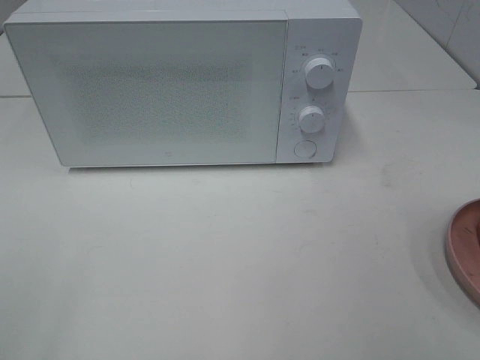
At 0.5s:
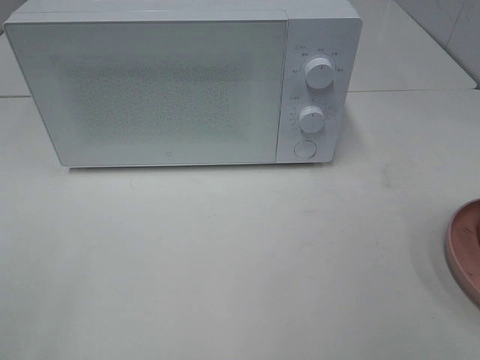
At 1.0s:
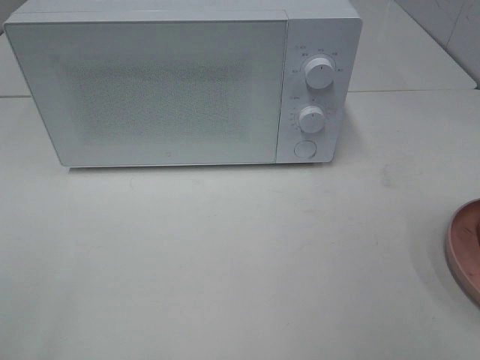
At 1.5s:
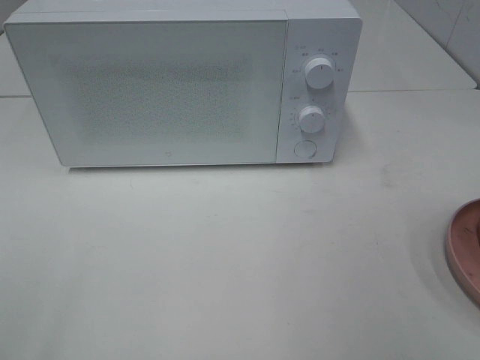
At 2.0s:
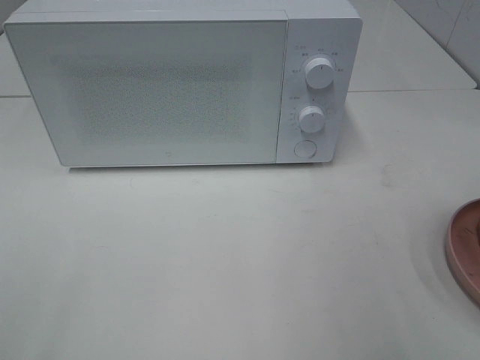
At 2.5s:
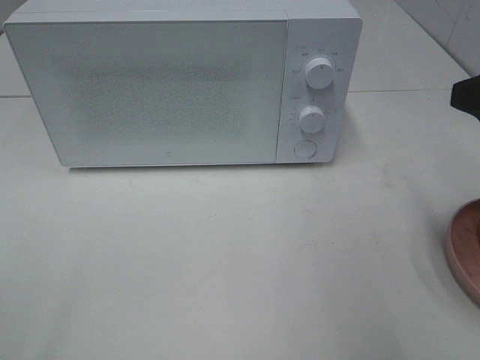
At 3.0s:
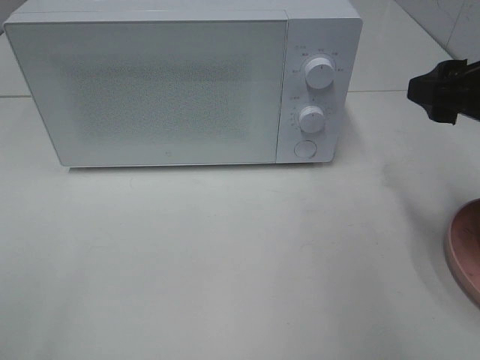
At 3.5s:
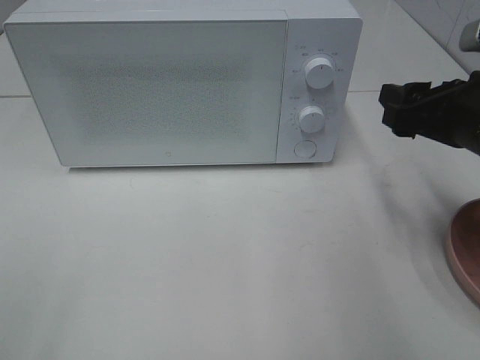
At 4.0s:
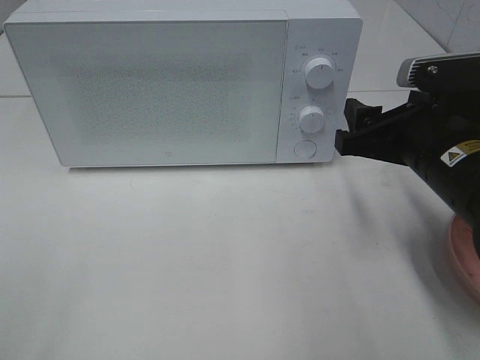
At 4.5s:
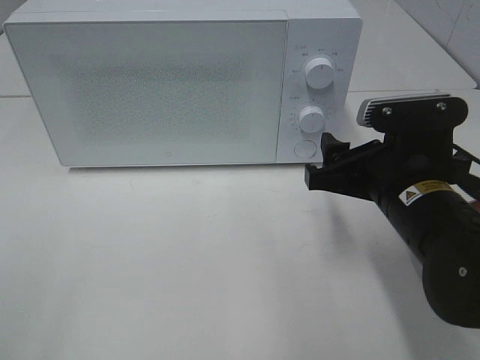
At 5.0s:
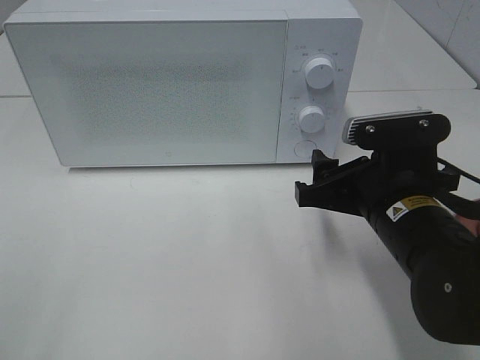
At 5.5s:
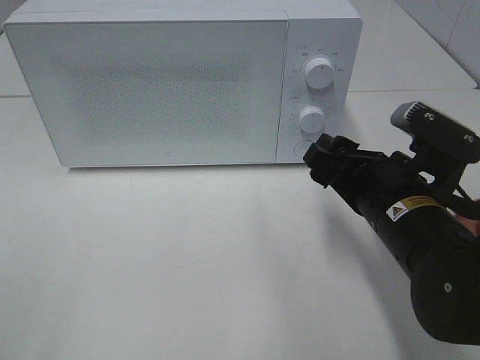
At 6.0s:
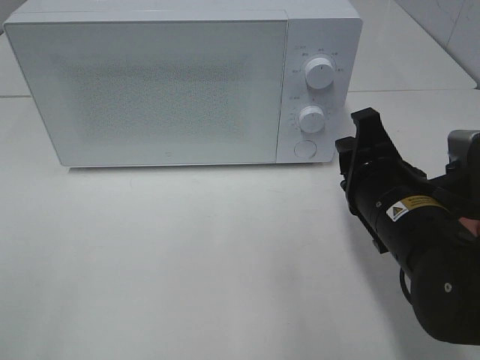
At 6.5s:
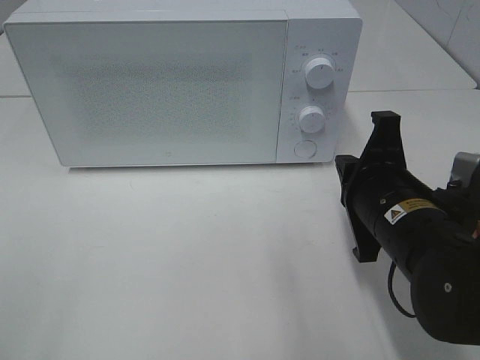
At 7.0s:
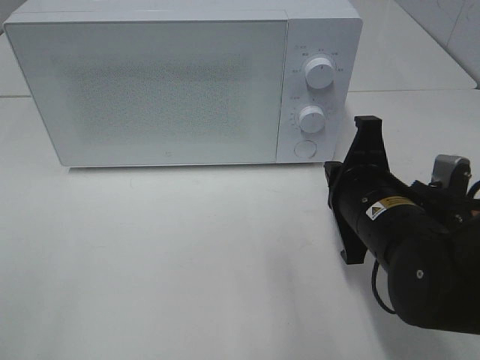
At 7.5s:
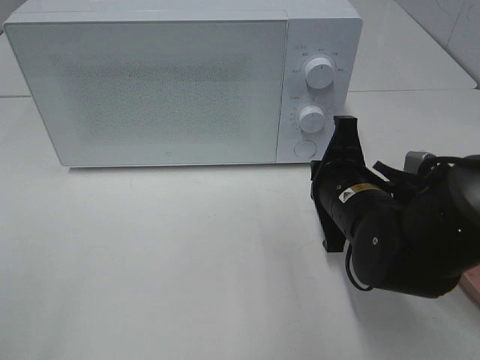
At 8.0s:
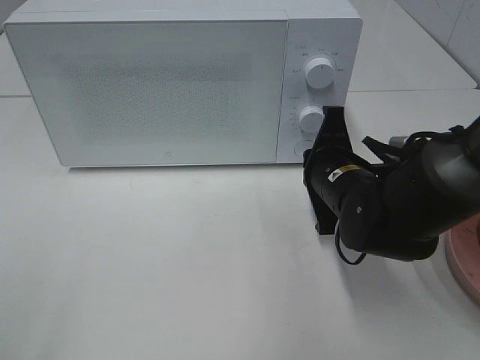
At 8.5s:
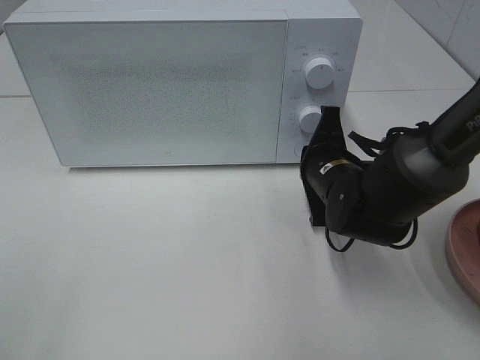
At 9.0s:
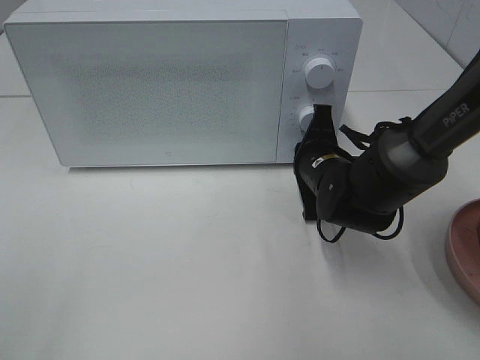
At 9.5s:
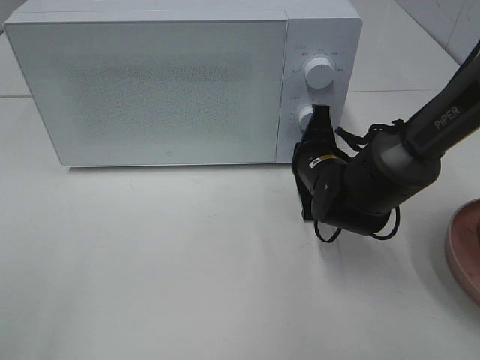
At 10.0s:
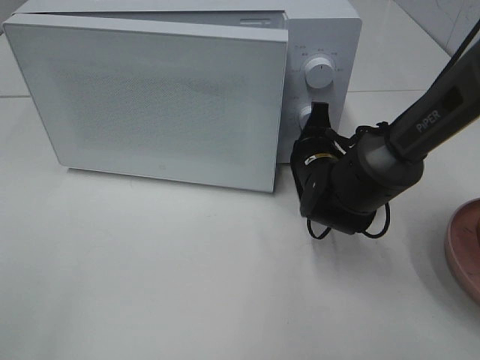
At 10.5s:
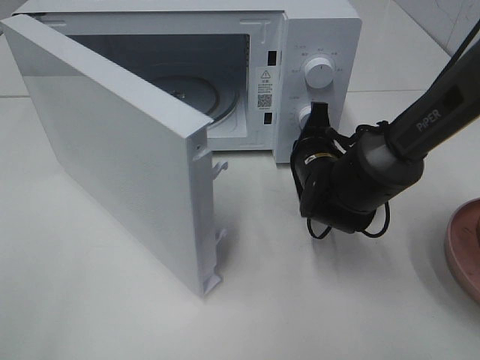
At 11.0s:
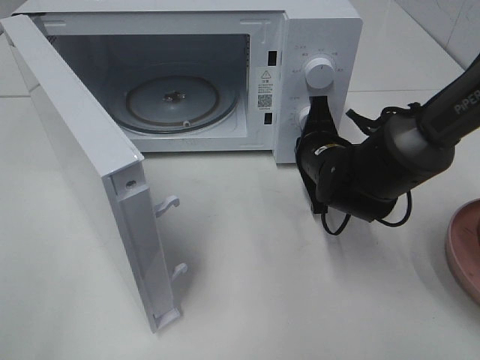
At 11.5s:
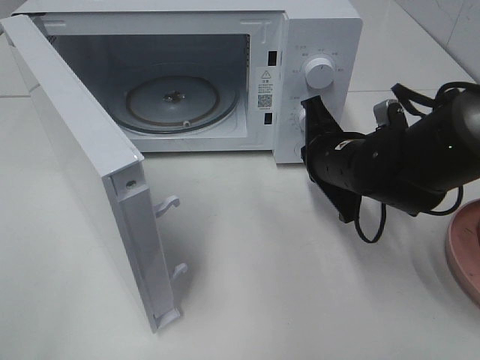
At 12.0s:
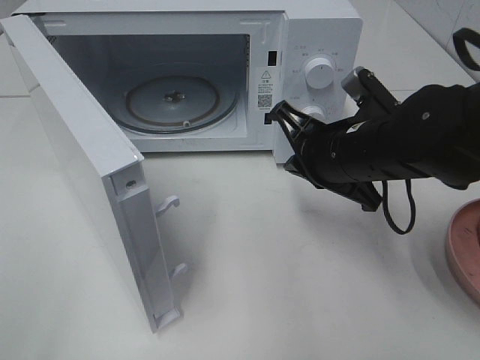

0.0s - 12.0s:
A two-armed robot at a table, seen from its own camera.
Task of the whole recording: Heat the burger.
Step, 0.0s - 11.5s: Right hand: press the switch.
2.0s - 4.0s: The right gripper travels downward, forward and to the left by roughly 20 cm.
4.0s - 6.0s: The right gripper ends up about 5 cm from where it was, and closes up.
6.0s - 8.0s: The right gripper goes some 10 cm forward, and closes.
8.0s - 10.0s: The right gripper travels forward by about 5 cm.
10.0s - 12.0s: The right gripper shifts some 10 cm upward and backward.

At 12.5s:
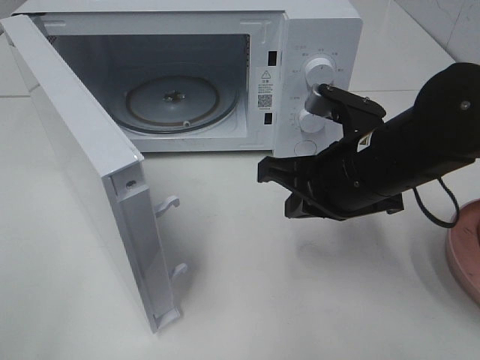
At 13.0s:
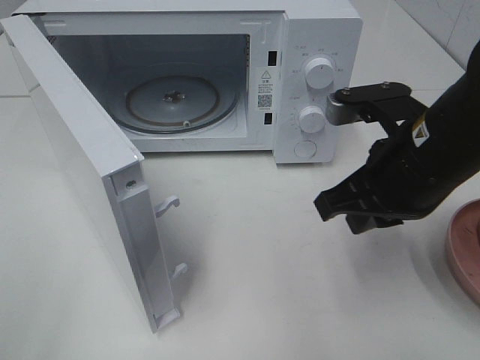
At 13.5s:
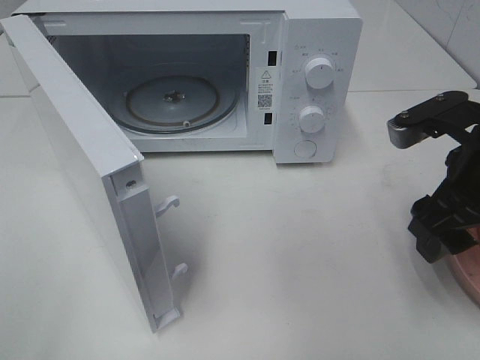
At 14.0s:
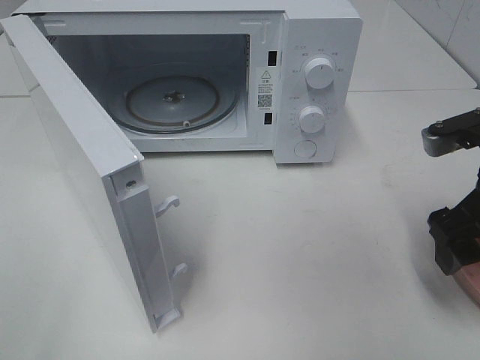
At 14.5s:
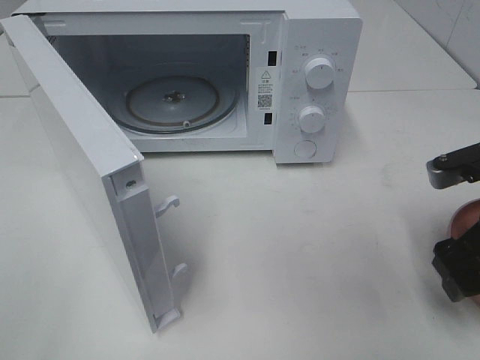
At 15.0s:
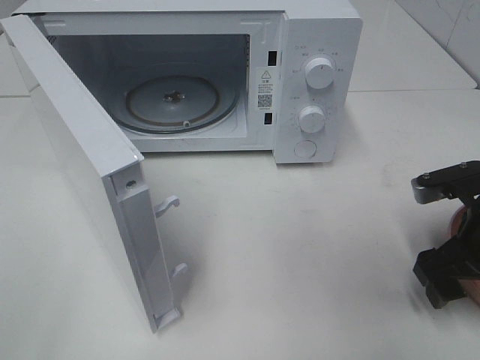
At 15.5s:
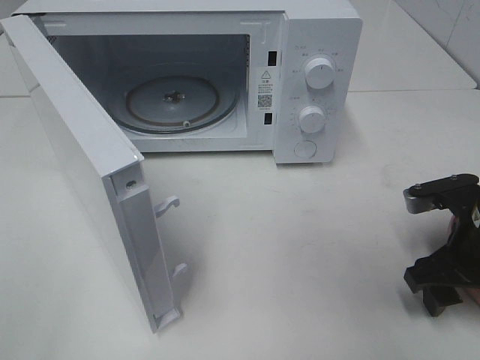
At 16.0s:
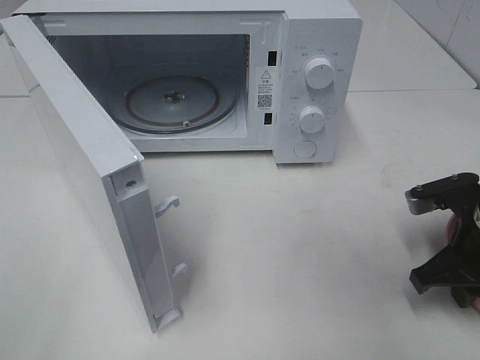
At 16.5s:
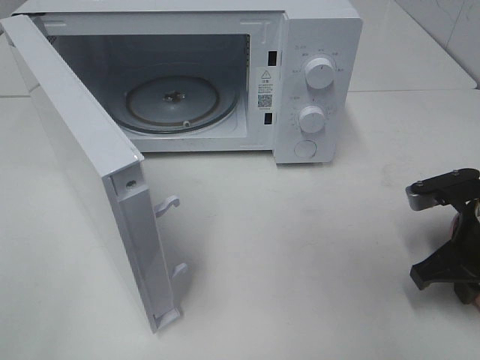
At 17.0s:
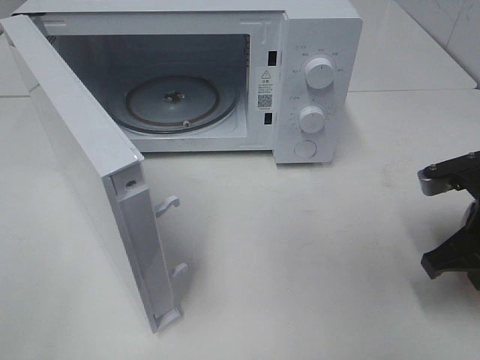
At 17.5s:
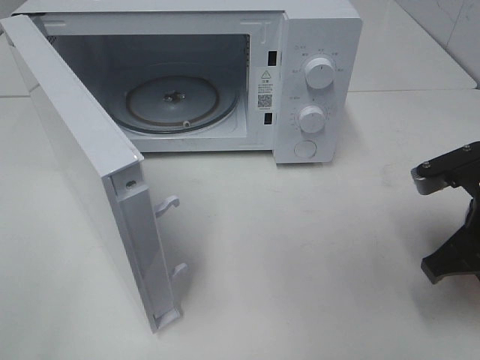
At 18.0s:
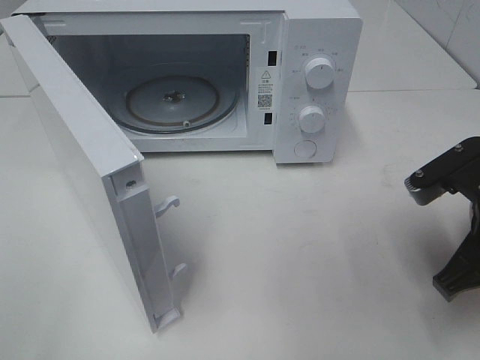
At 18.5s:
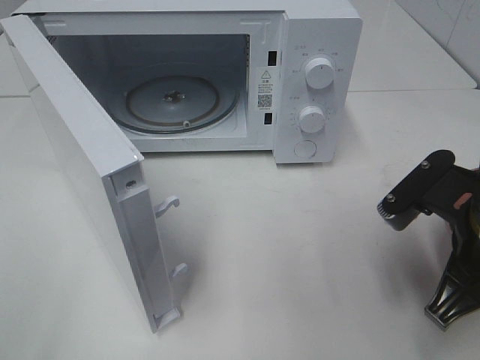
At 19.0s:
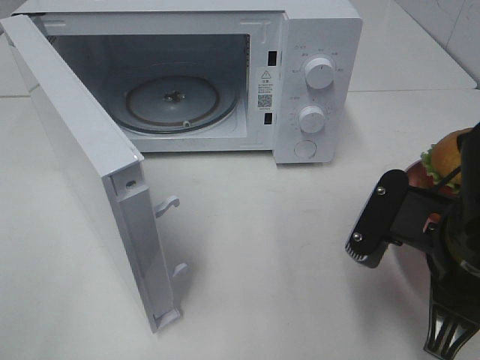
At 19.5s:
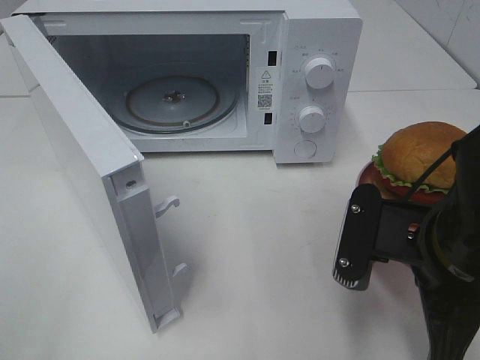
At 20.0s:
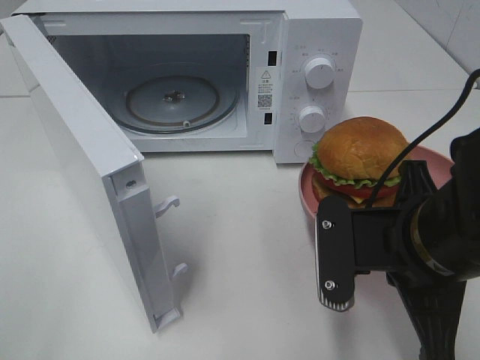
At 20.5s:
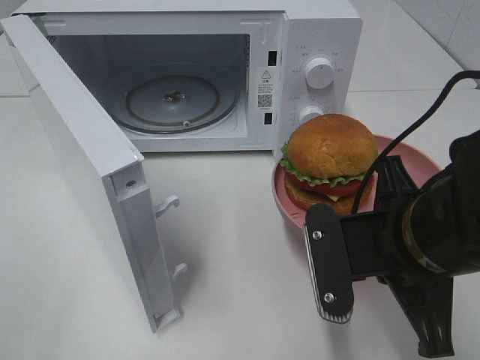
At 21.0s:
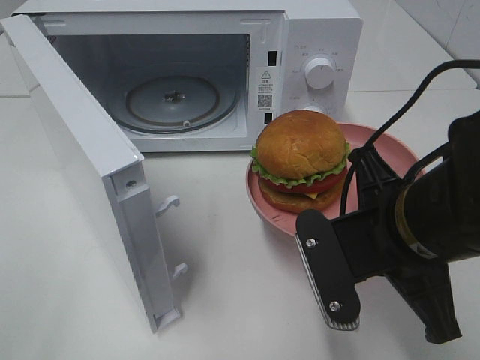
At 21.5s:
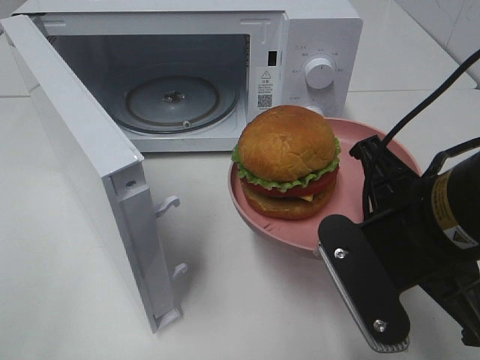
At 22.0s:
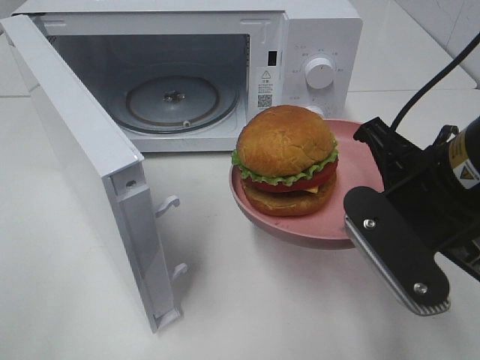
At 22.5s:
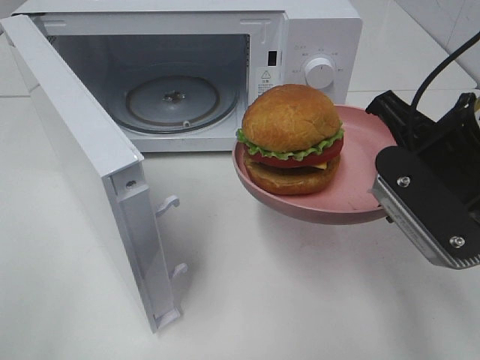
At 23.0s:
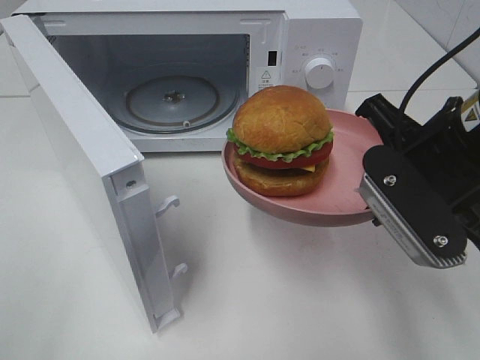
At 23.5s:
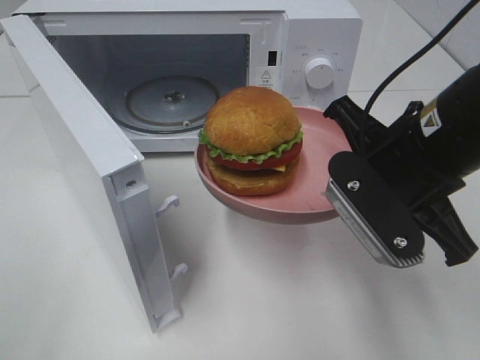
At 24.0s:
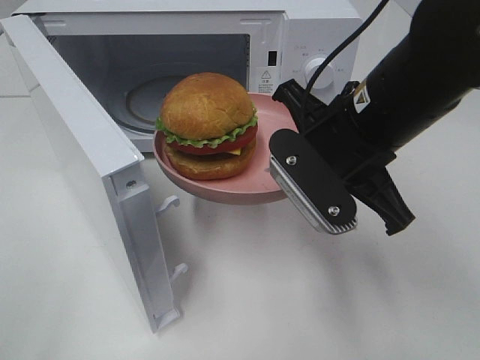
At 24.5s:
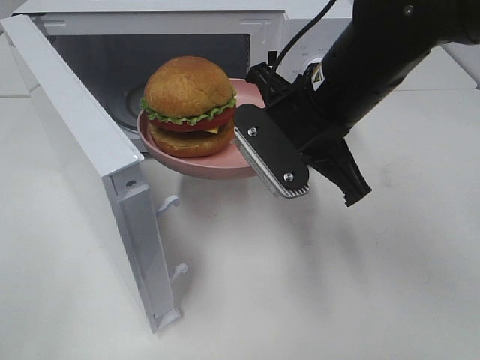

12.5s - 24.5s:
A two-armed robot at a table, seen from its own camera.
Task of the whole recording: Heat the burger.
Step, 12.5s - 17.0s: Right hand: grab the plate with the hamburger.
12.5s - 14.5s: The right gripper shifts some 15 cm to the right, and opens its fingers.
14.5s - 16.5s: The right gripper shifts about 5 cm downward, and closes.
16.5s - 18.5s: The right gripper moves to the left, upward and backward, some 10 cm.
18.5s - 20.5s: The right gripper moves to the left, roughly 5 cm.
20.5s - 22.5s: The right gripper heads upward, covering approximately 5 cm.
22.5s - 24.5s: The right gripper is displaced to the left and forward by about 10 cm.

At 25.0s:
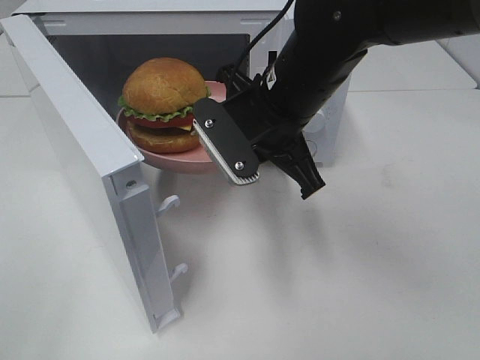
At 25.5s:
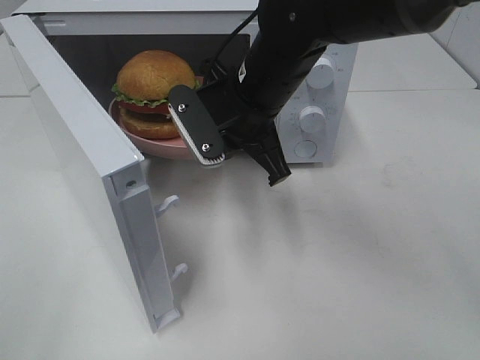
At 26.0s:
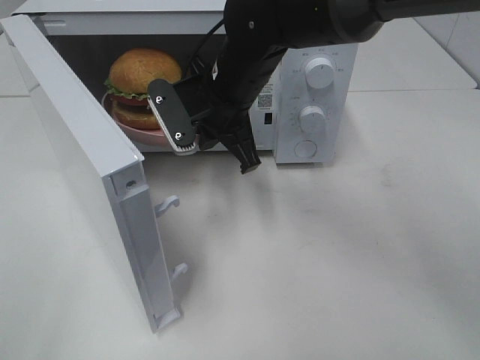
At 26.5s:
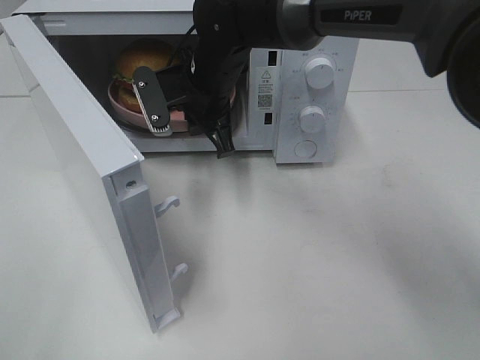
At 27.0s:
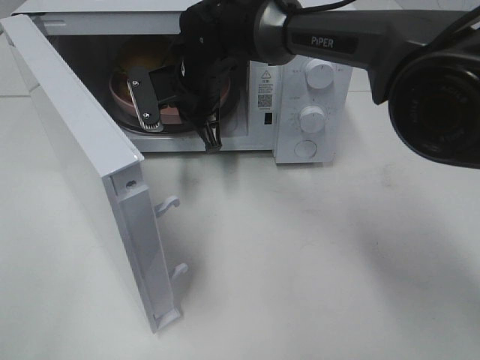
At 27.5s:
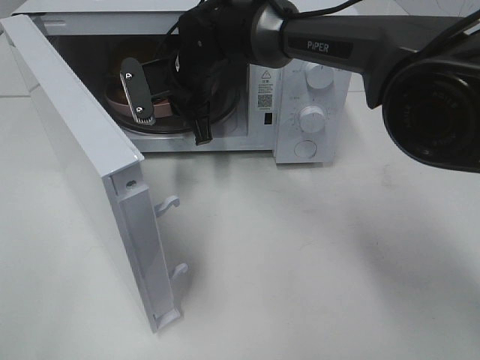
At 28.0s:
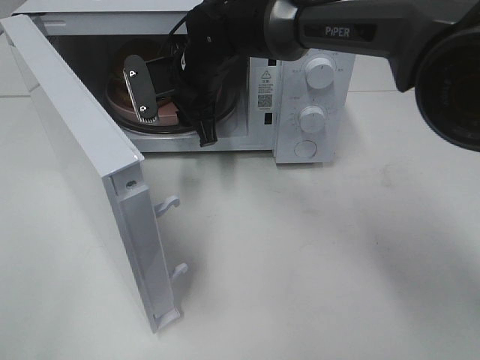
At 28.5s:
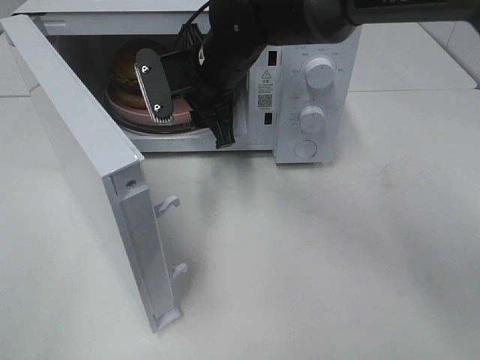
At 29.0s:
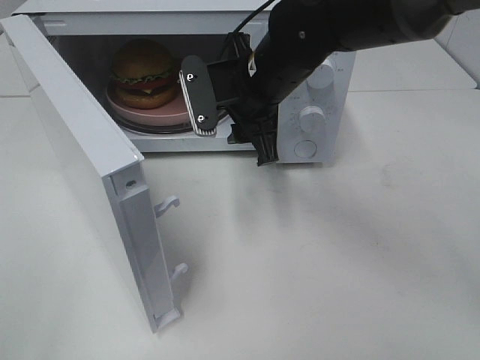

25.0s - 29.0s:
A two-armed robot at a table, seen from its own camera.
Task of the whole recording: Heat the burger.
Step, 25.0s - 28.0s: Right hand: place the plate in the microwave.
25.0s - 27.0s: The right gripper shifts some 15 cm forward and to the left.
27.0s - 29.0s: The right gripper shifts some 10 cm to the right and backward, and opens up.
